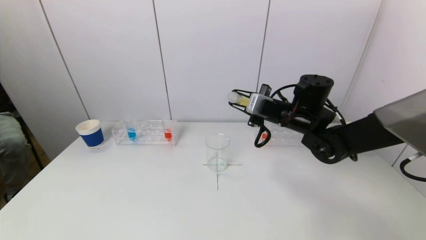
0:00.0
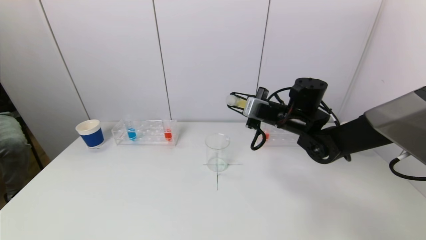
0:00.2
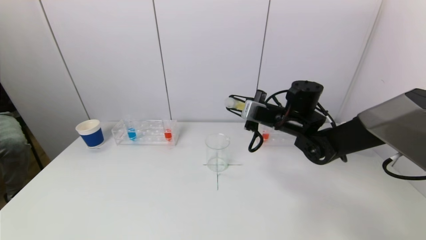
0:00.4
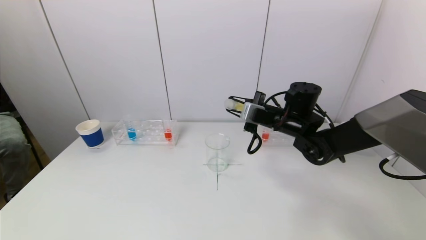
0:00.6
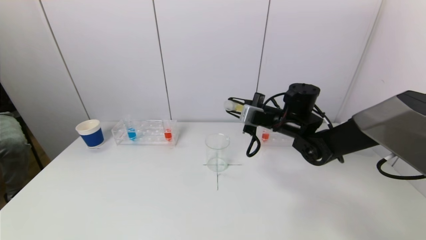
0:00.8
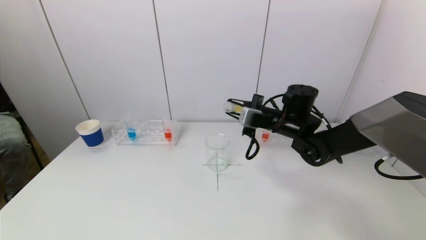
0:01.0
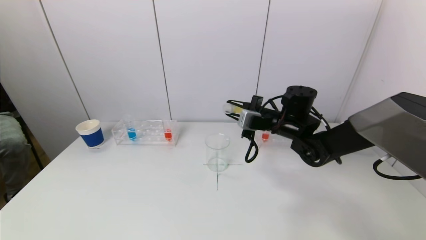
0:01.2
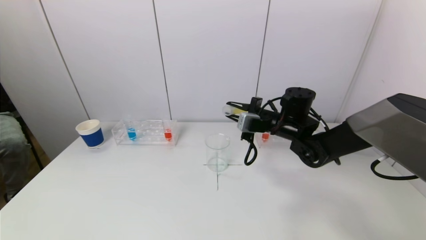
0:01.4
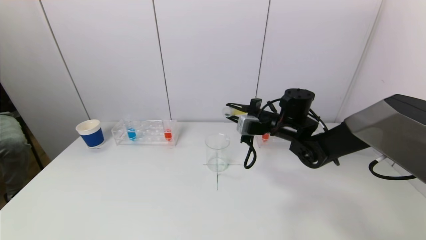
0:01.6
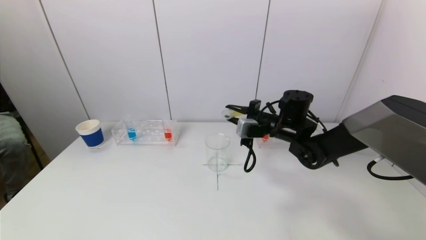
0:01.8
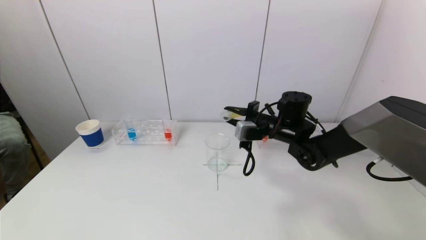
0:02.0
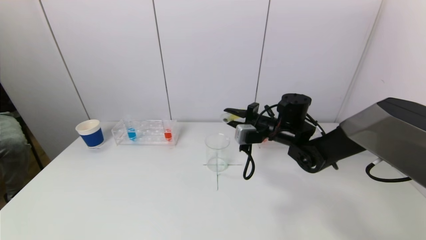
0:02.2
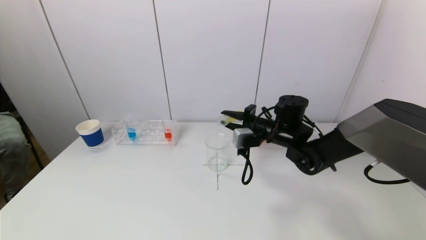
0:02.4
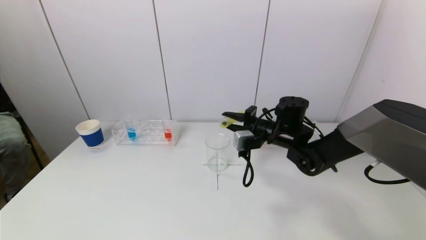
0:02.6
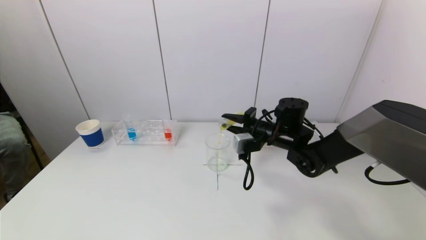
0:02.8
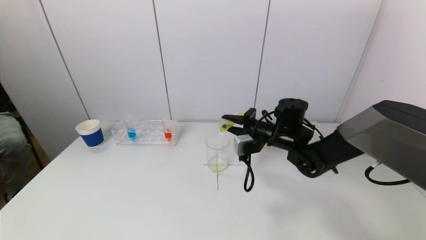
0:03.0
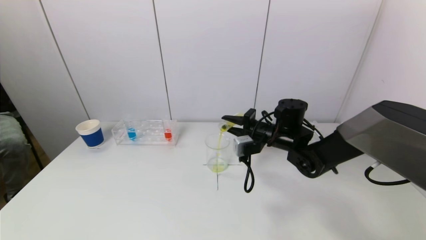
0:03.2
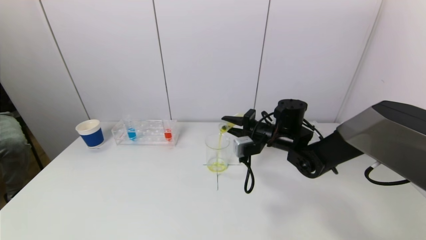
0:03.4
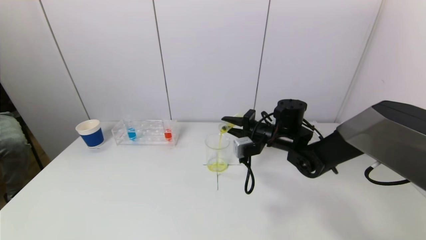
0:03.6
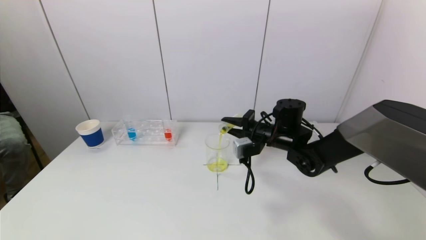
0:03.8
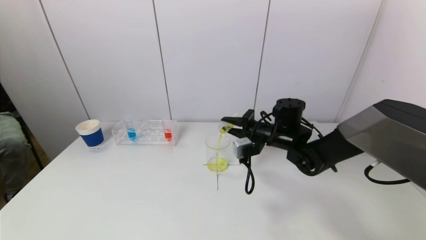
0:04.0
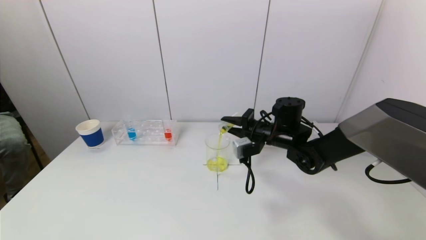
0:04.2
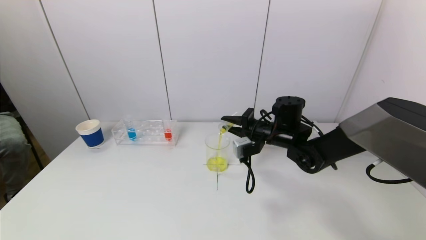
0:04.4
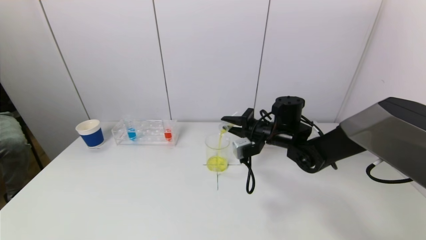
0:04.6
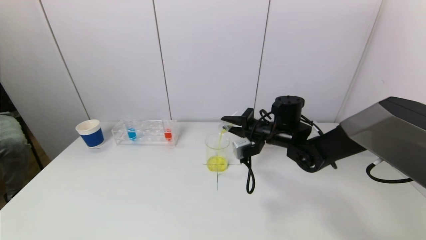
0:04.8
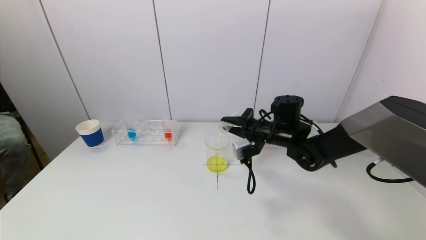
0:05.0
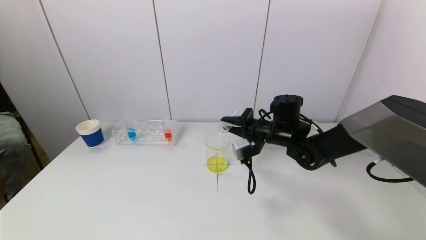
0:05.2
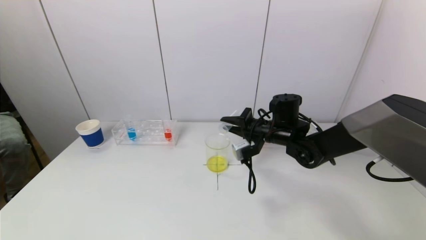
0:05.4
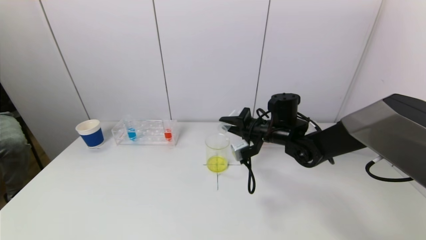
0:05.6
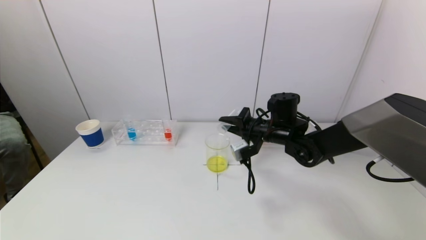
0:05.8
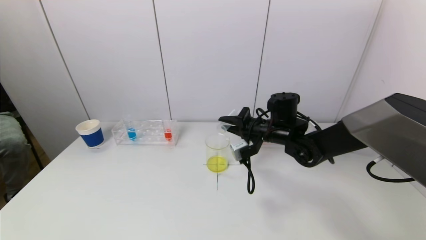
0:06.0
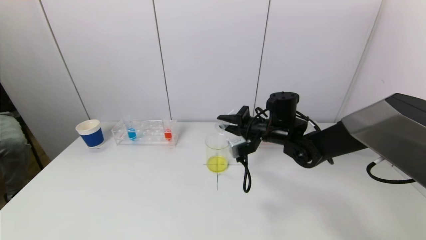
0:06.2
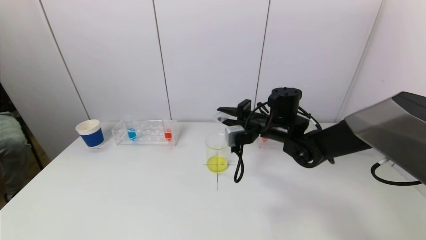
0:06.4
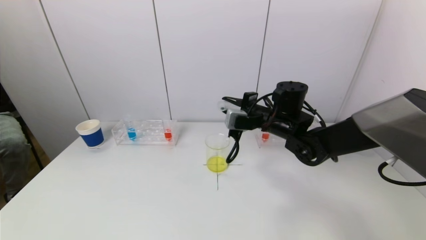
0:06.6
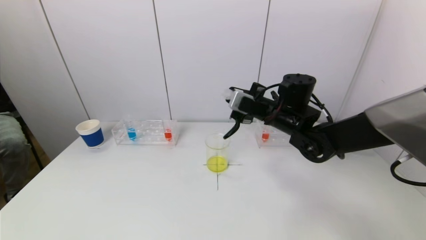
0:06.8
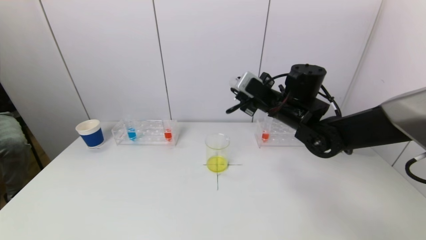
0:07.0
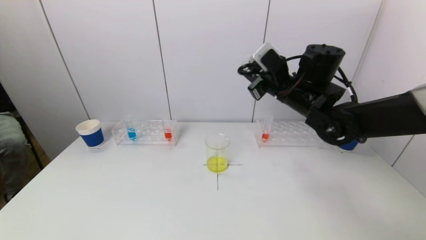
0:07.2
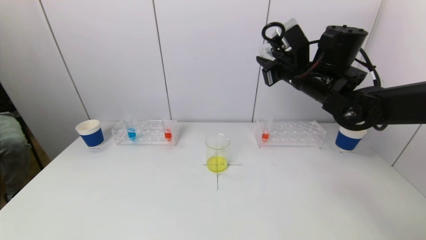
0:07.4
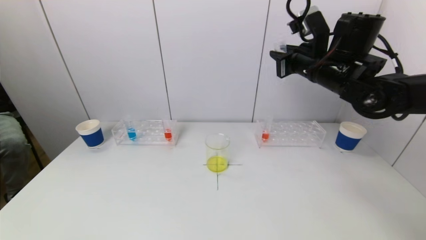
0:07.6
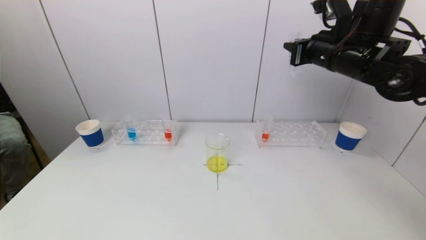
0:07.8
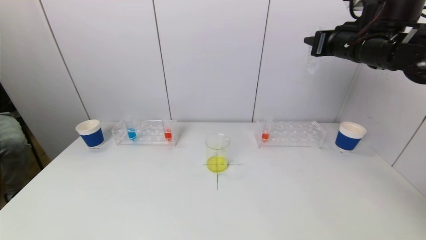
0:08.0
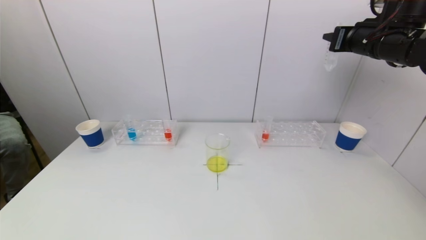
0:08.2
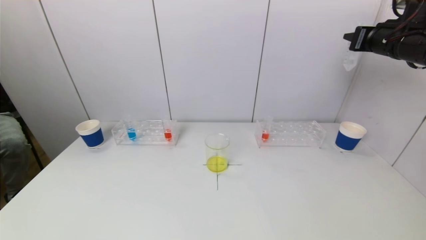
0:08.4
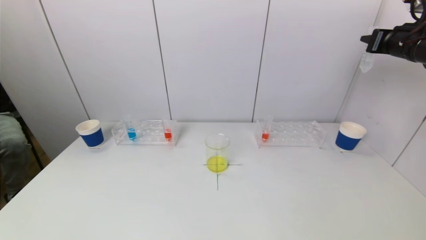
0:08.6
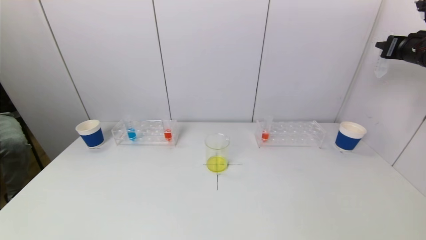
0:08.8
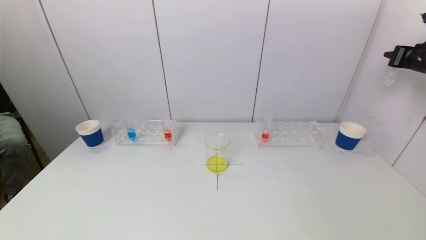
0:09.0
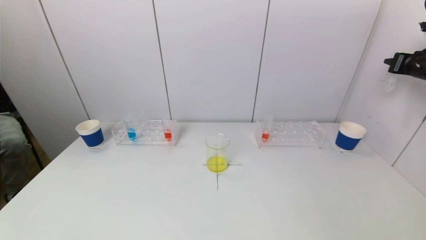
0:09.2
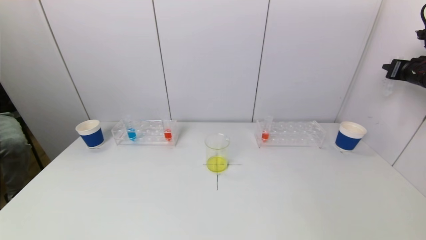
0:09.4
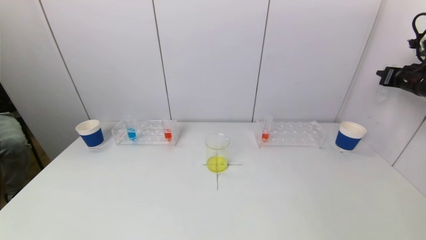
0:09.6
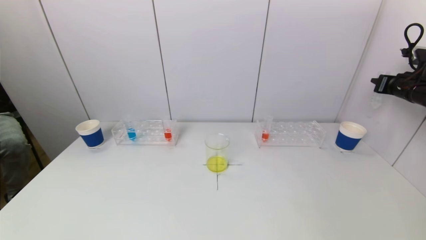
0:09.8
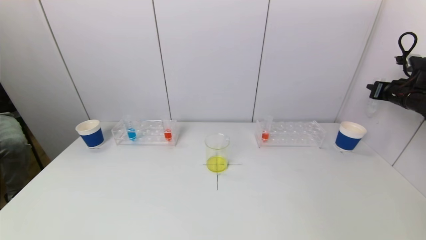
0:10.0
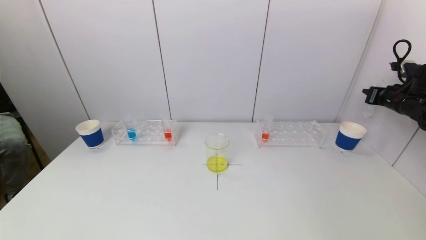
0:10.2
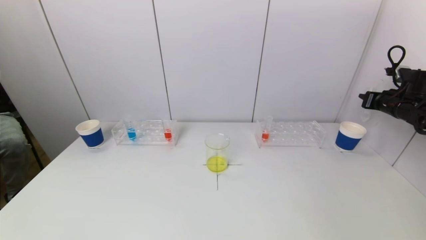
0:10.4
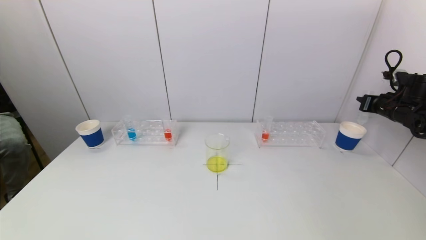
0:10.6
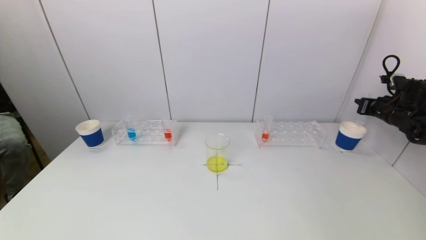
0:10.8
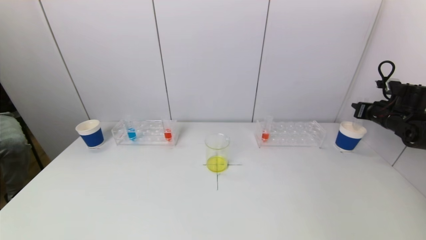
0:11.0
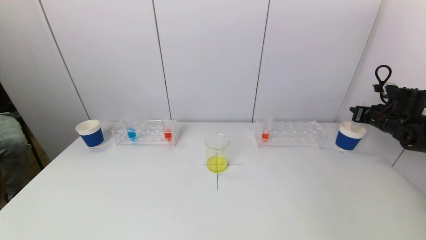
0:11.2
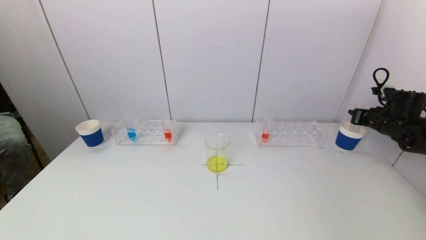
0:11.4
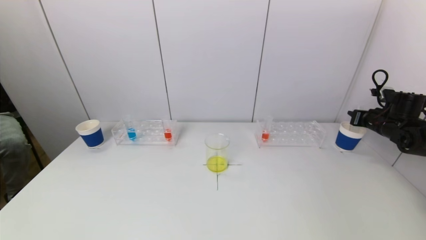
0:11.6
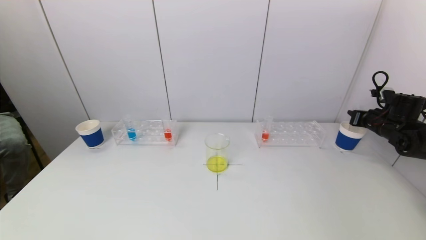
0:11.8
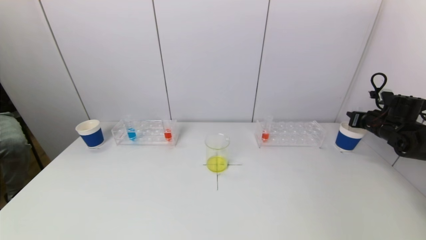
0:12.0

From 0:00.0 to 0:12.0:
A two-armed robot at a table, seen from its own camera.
Task of the whole recording: pick up a test tube with pigment on left test tube rack and a test tube with pigment on right test tube rack by grippers and pour them into the beaker.
Step, from 0:00.0 to 0:06.0: Pour the yellow reagent into the graduated cylinder with the right gripper.
From 0:00.0 to 0:01.6: There are only small adjustments of the grippers.
From 0:01.6 to 0:03.0: There are only small adjustments of the grippers.
From 0:03.0 to 0:06.0: The grippers move only a little.
From 0:06.0 to 0:07.6: The right gripper goes some 20 cm upward and to the right.
From 0:07.6 to 0:09.0: The right gripper travels to the right by about 25 cm.
From 0:09.0 to 0:10.4: The right gripper heads downward, covering about 10 cm.
From 0:10.4 to 0:12.0: The right gripper heads downward, covering roughly 5 cm.

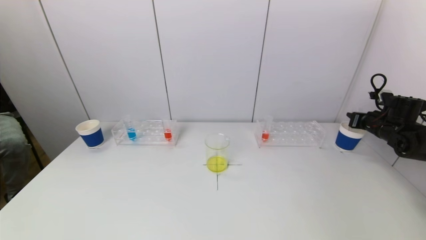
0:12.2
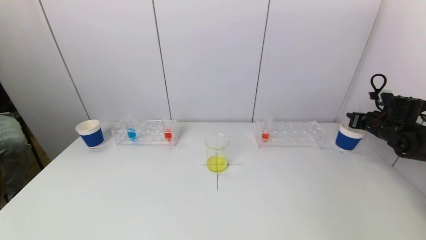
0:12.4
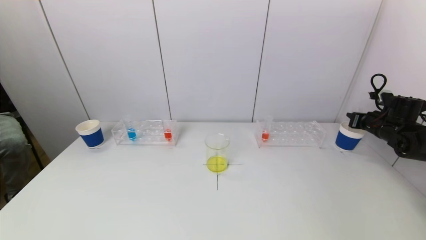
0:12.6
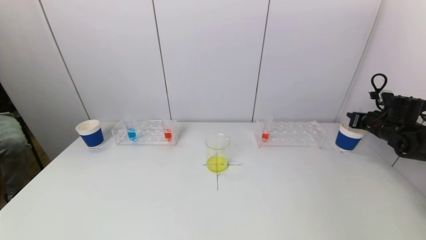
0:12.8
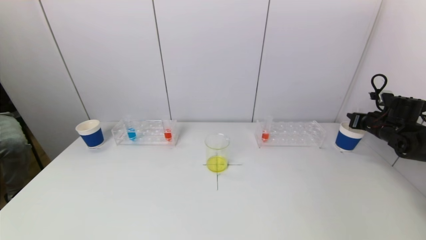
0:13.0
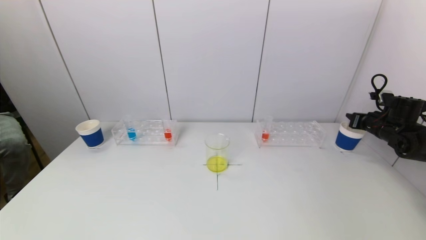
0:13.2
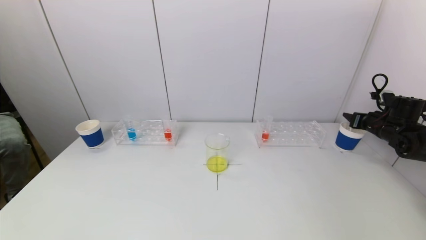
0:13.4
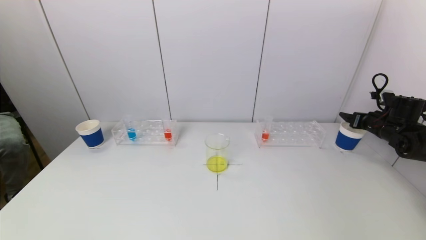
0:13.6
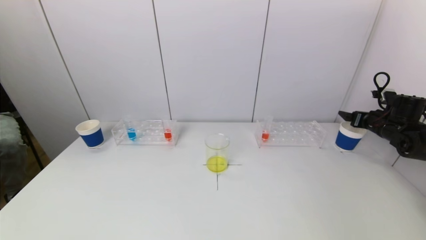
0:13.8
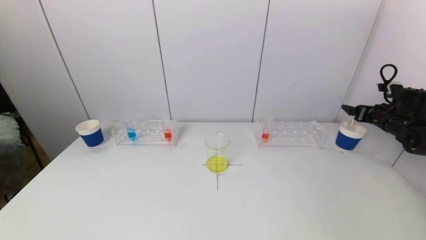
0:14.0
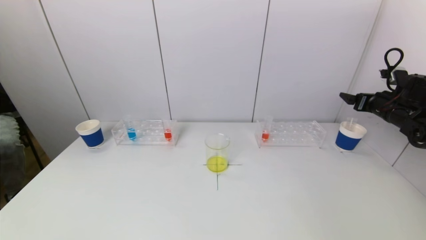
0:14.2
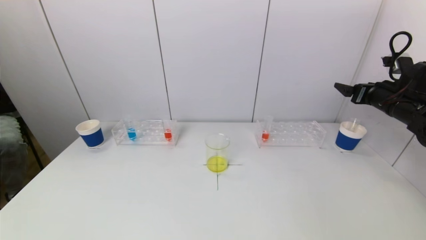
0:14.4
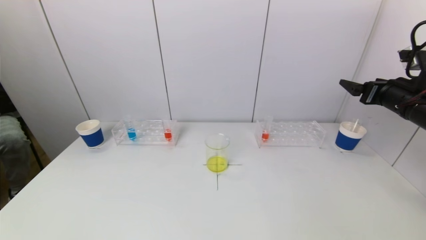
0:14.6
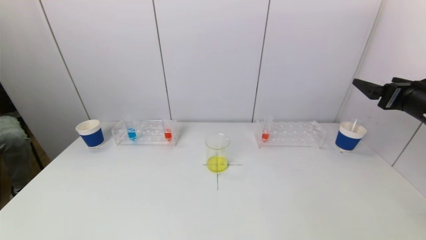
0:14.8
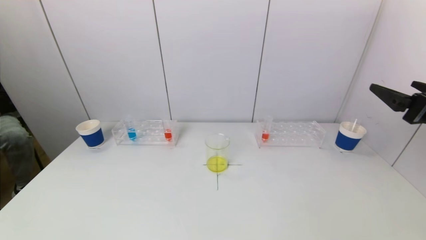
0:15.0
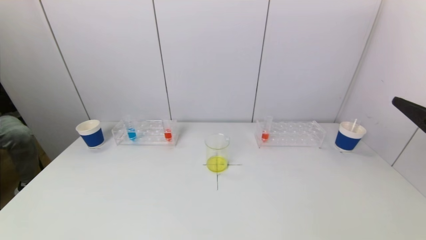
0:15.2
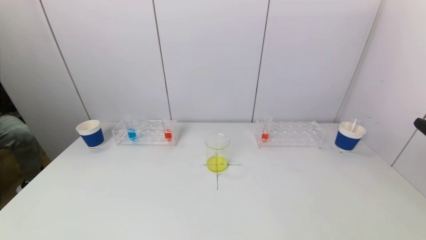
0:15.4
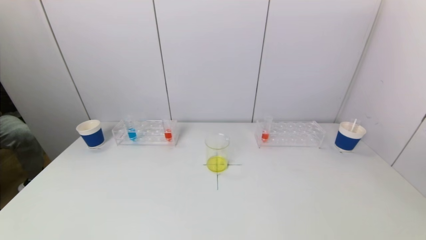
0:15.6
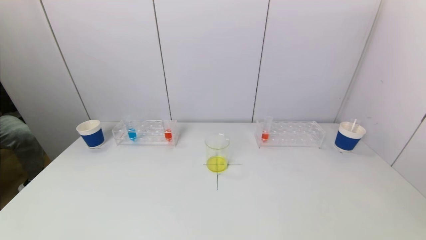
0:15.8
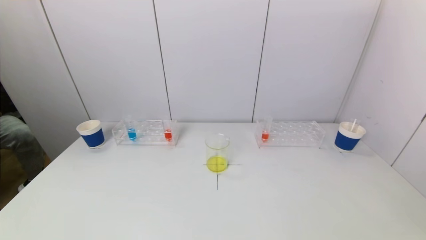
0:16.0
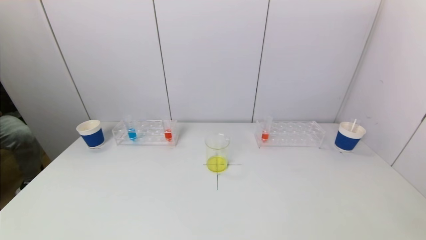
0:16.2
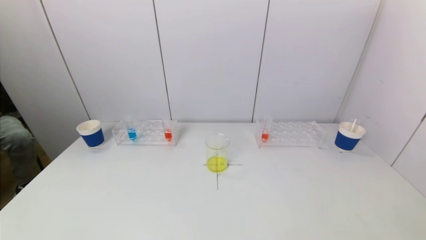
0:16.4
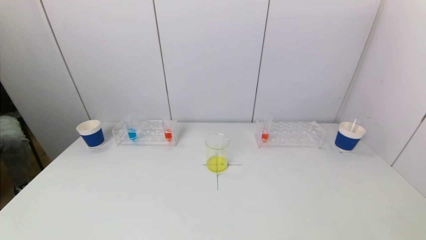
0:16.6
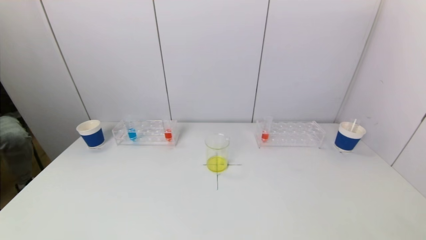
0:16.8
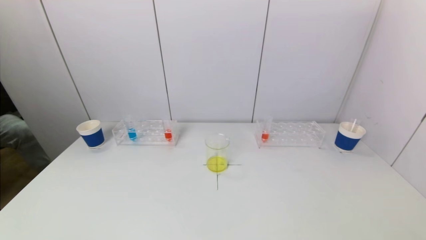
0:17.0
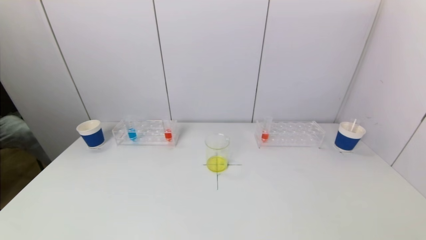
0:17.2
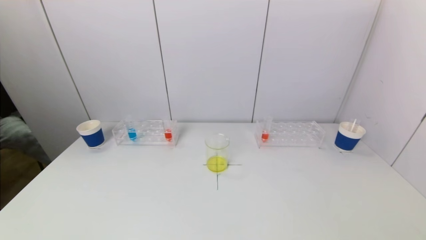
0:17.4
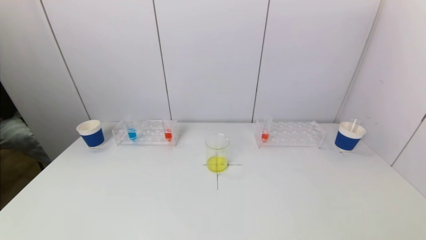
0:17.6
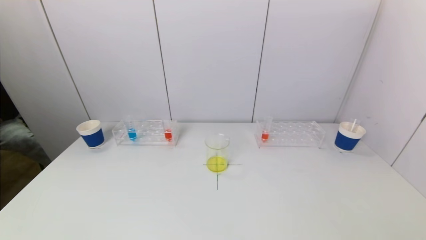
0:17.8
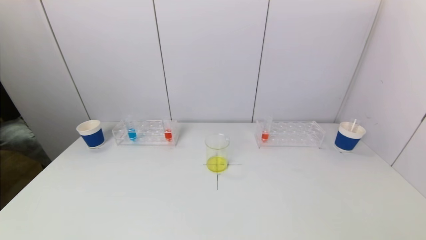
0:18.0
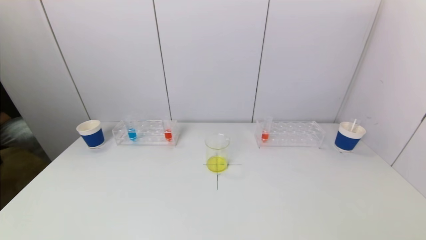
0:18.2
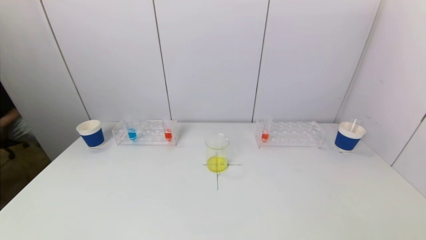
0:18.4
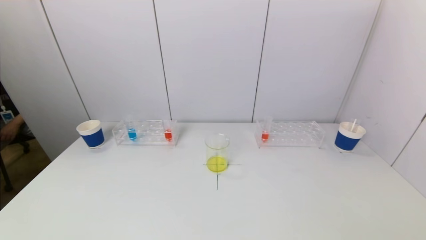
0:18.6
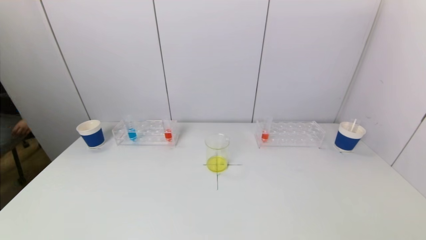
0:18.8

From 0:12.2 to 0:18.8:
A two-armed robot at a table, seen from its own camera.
Task of the whole recording: pick up a test tube with pigment on left test tube rack and a test tube with pigment on right test tube rack by grippers and pour them into the beaker.
From 0:12.2 to 0:13.8: The right gripper opens up.
From 0:13.8 to 0:15.4: The right gripper is displaced backward and upward by roughly 35 cm.
